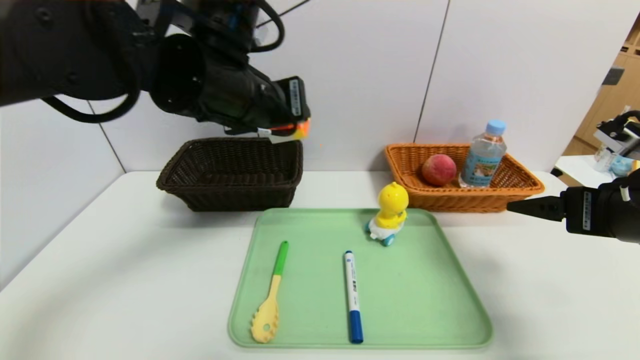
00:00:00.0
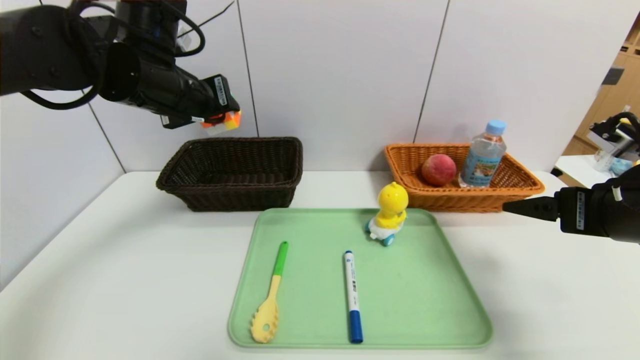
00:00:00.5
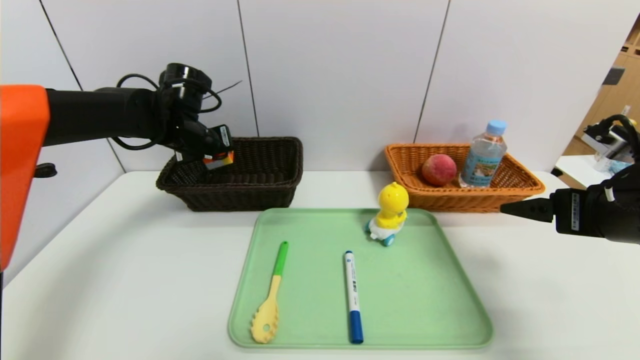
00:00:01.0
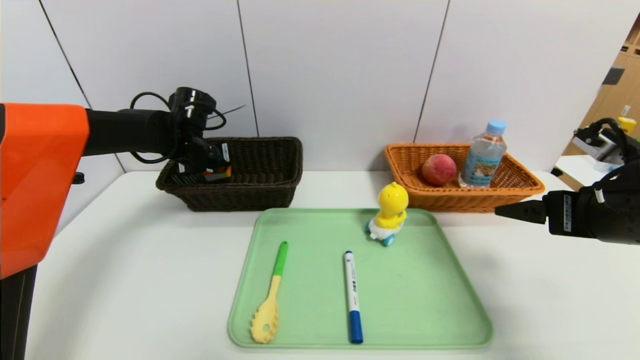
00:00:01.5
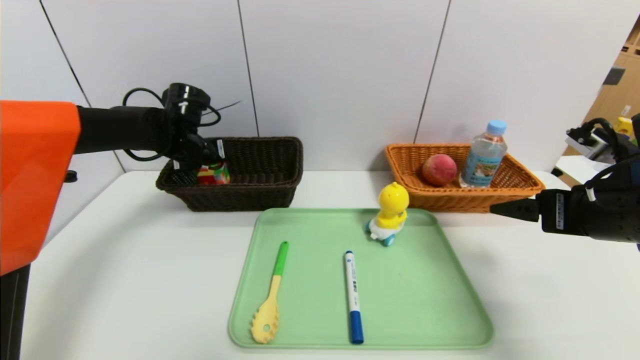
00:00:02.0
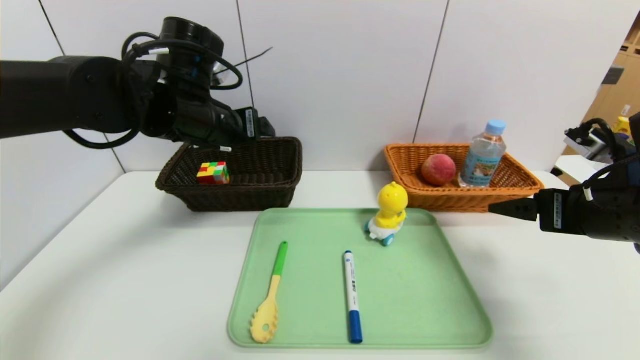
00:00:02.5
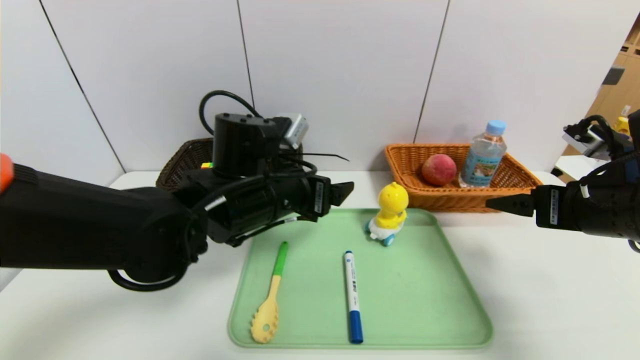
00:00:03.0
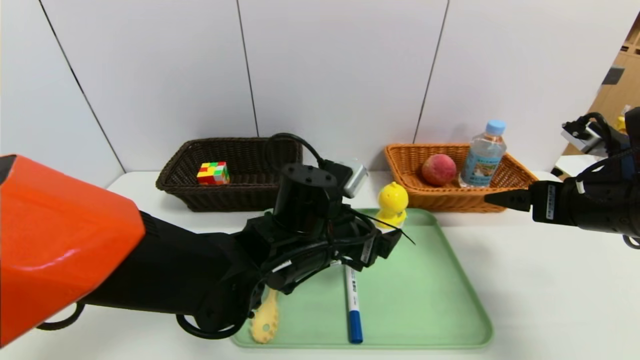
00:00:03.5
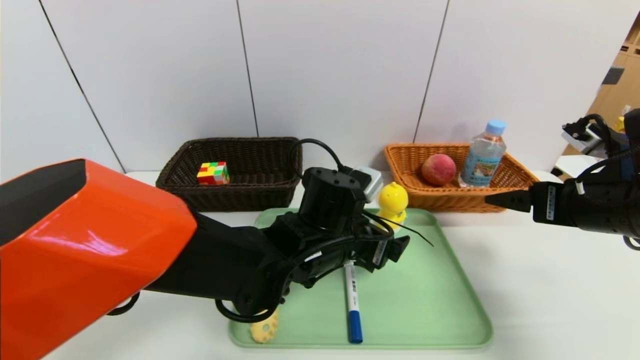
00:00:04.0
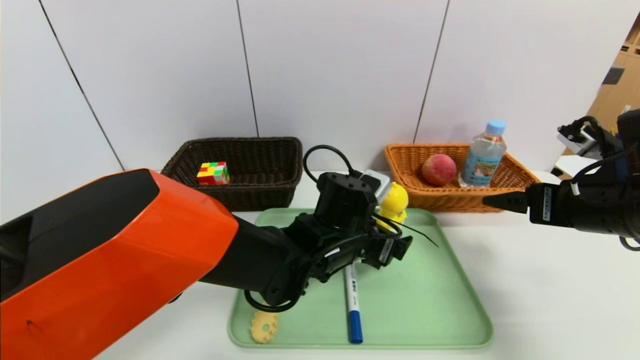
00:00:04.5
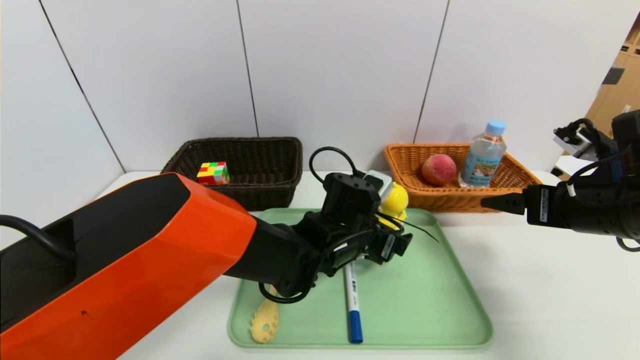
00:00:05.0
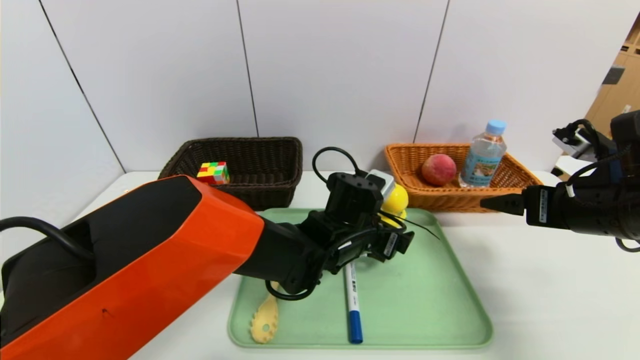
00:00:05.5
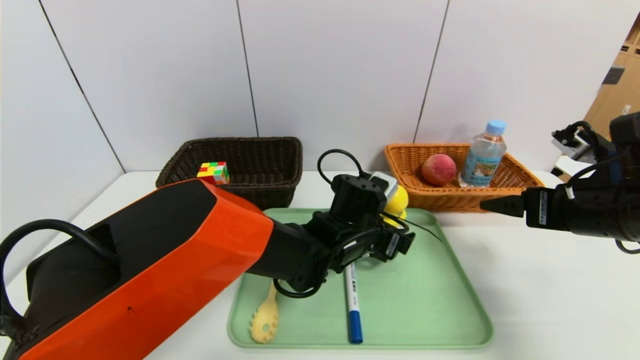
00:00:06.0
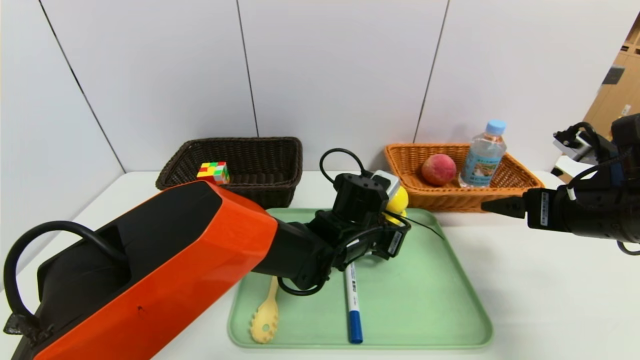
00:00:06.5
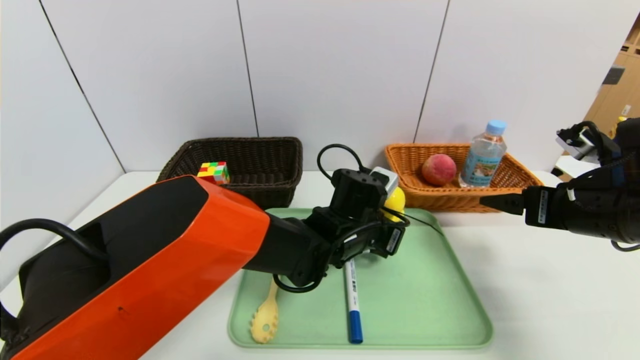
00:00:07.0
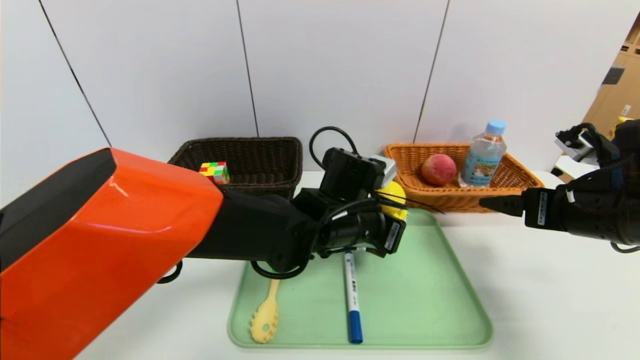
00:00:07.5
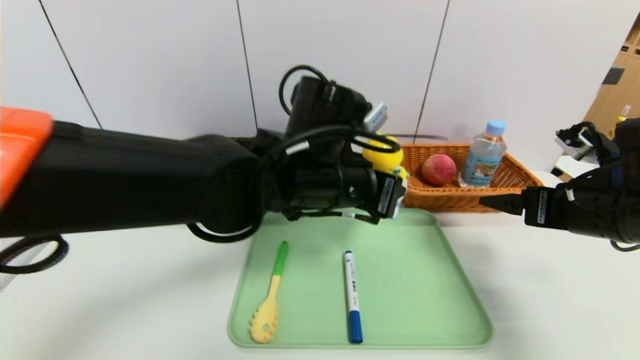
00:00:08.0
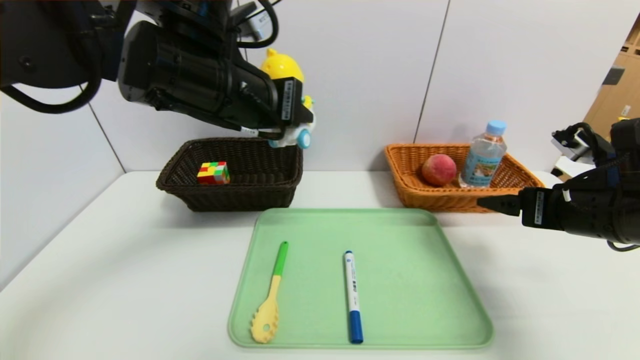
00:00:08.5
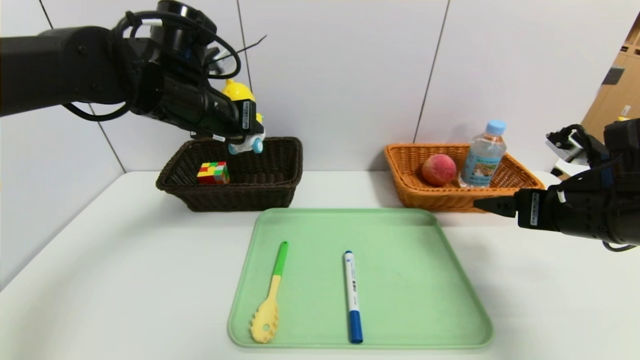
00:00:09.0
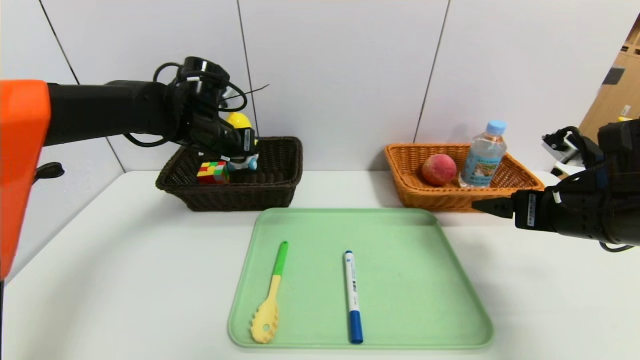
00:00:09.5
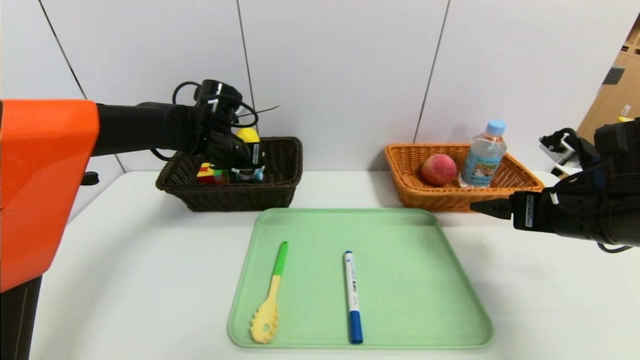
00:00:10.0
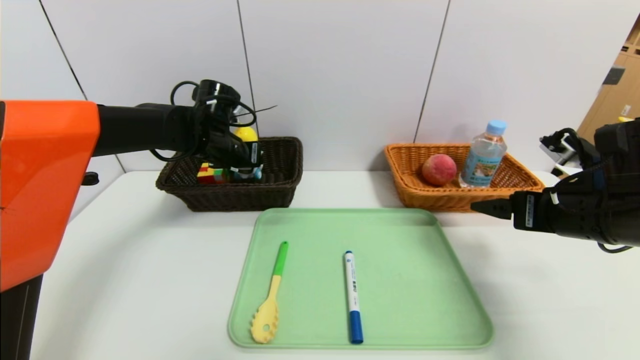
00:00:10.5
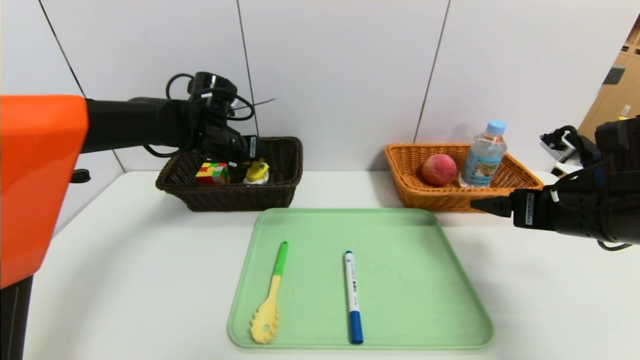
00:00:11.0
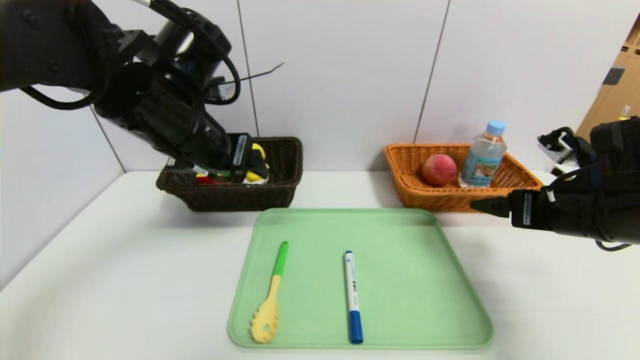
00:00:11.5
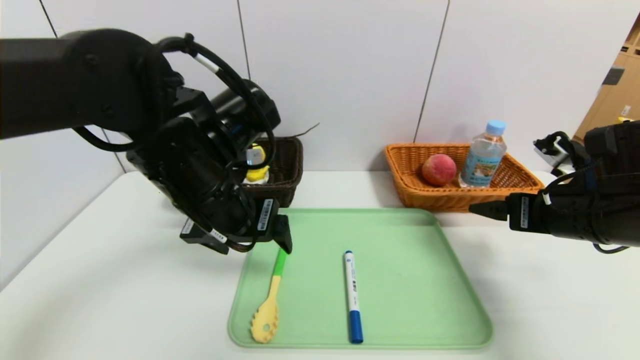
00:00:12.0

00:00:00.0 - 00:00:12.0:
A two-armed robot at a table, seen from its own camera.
Task of the whole recording: place the food in the right basket with the right gripper, and place the non food items in the left basket with the left gripper.
Step, 00:00:02.0 - 00:00:11.0: Grasp the yellow duck and put it in the left basket.
00:00:00.0 - 00:00:02.0: The left gripper is displaced forward, to the left and downward by about 25 cm.
00:00:02.0 - 00:00:04.0: The left gripper shifts approximately 30 cm to the right and backward.
00:00:04.0 - 00:00:06.0: The left gripper ends up roughly 5 cm from where it was.
00:00:06.0 - 00:00:08.0: The left gripper moves upward, roughly 15 cm, and closes its fingers.
00:00:08.0 - 00:00:10.0: The left gripper is displaced to the left and forward by some 25 cm.
00:00:10.0 - 00:00:12.0: The left gripper goes approximately 20 cm backward, and opens up.

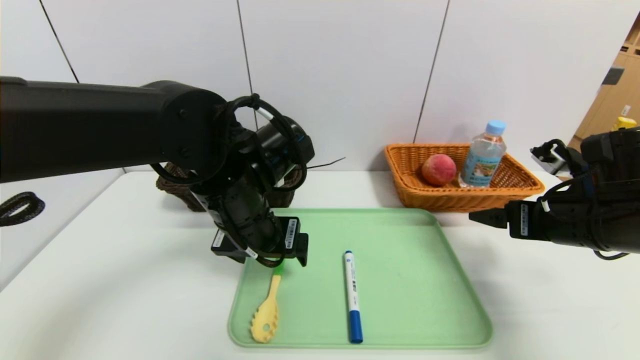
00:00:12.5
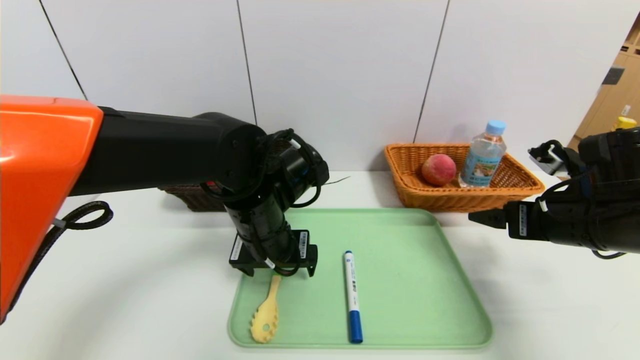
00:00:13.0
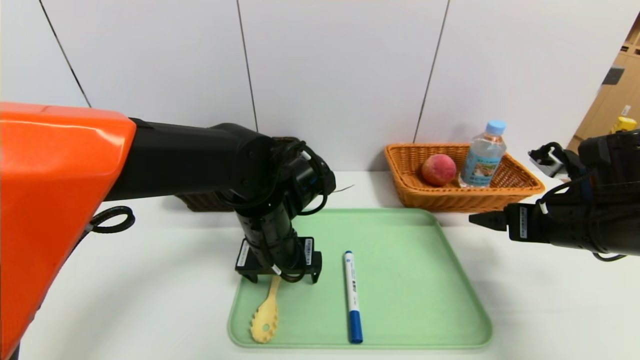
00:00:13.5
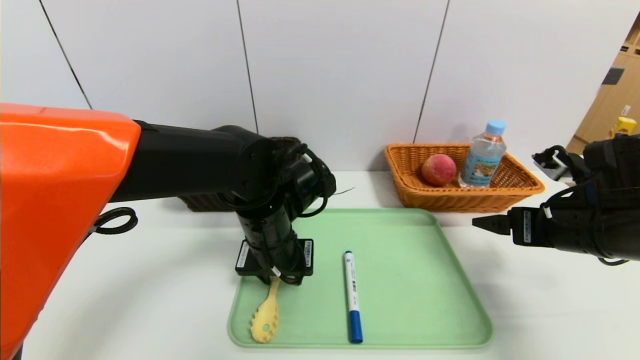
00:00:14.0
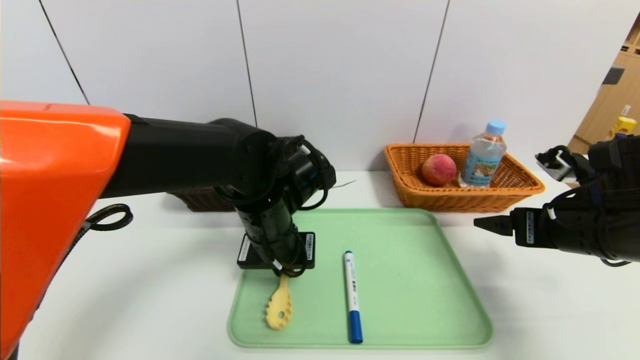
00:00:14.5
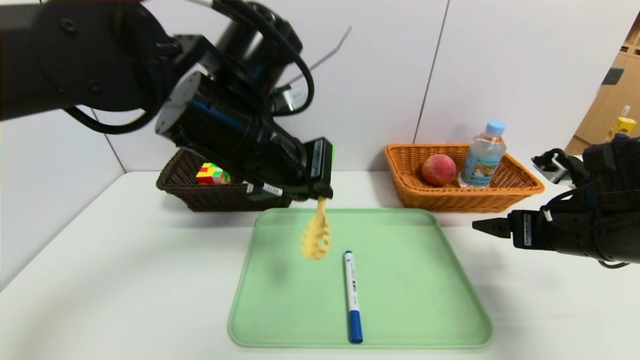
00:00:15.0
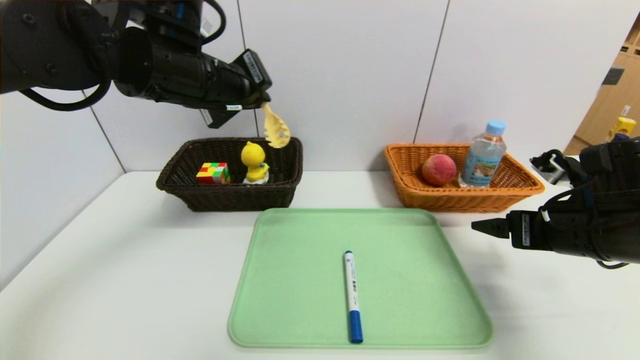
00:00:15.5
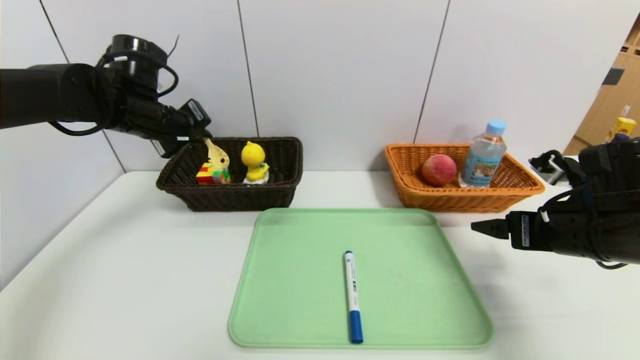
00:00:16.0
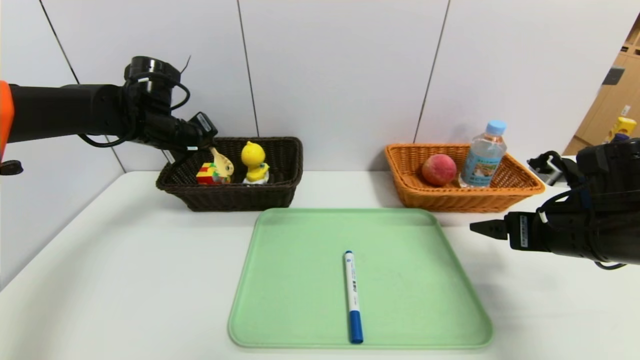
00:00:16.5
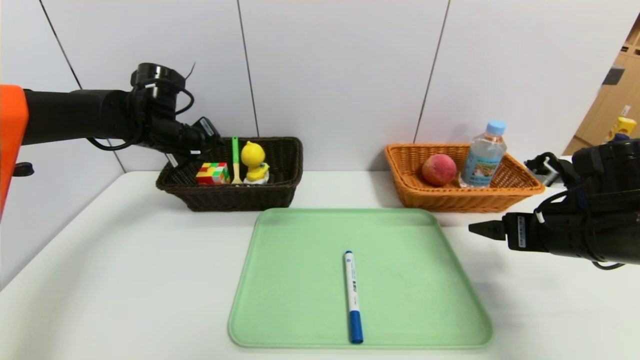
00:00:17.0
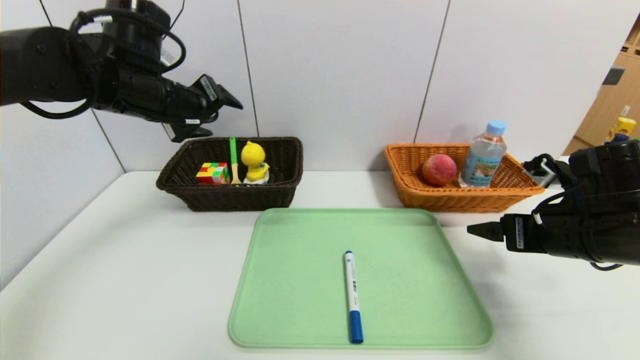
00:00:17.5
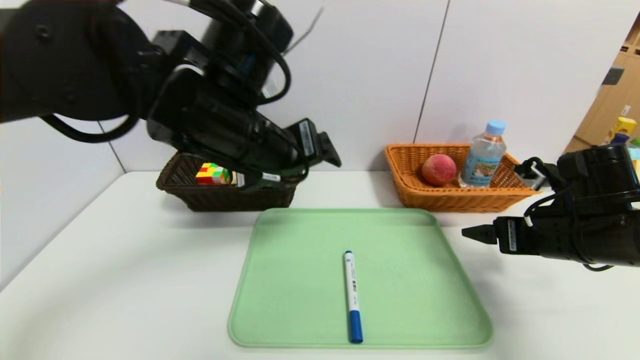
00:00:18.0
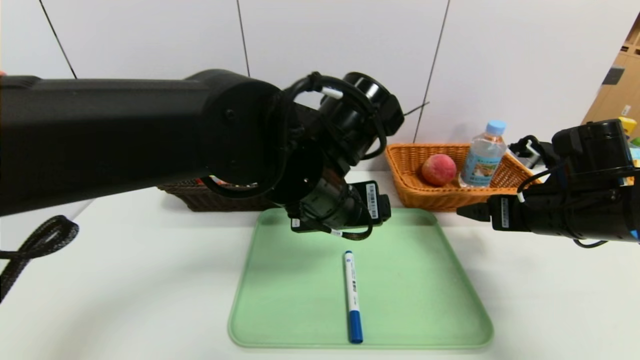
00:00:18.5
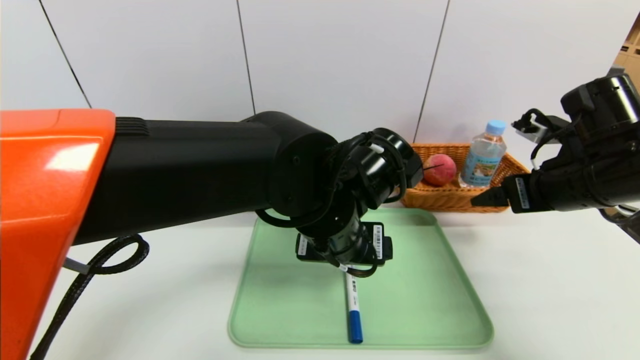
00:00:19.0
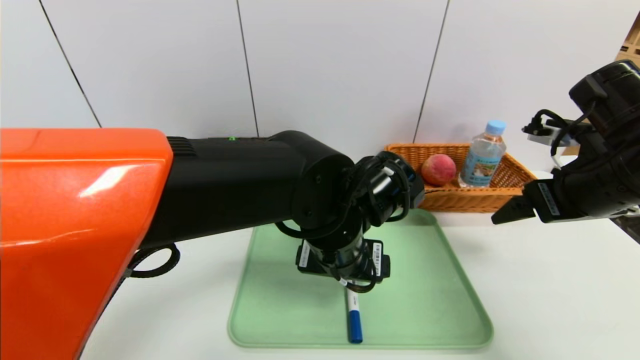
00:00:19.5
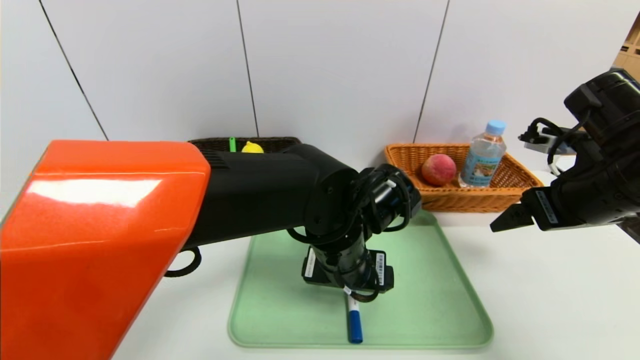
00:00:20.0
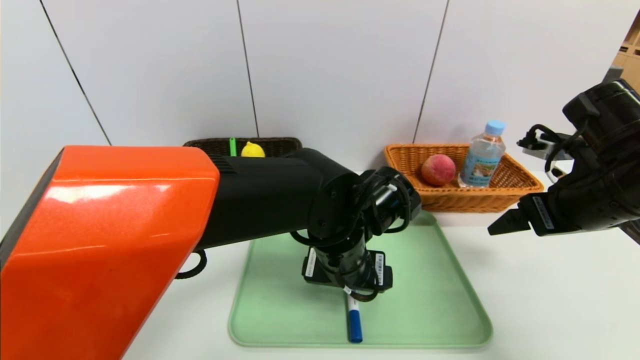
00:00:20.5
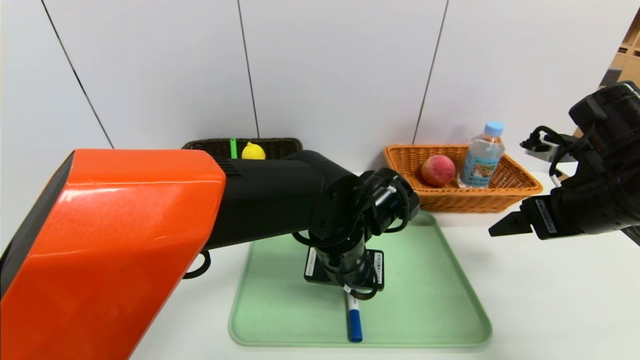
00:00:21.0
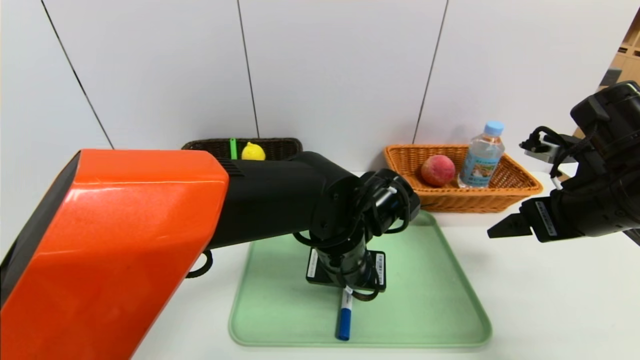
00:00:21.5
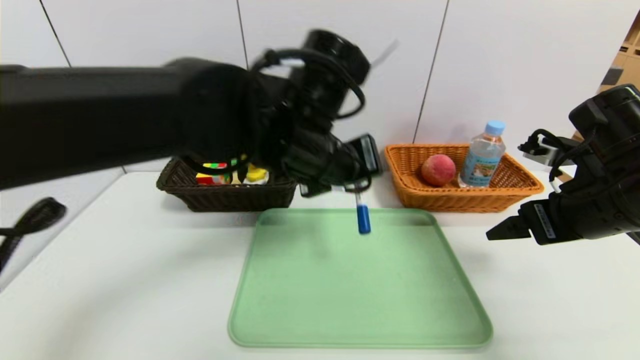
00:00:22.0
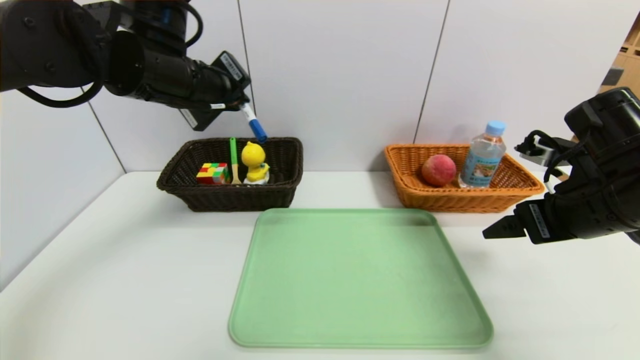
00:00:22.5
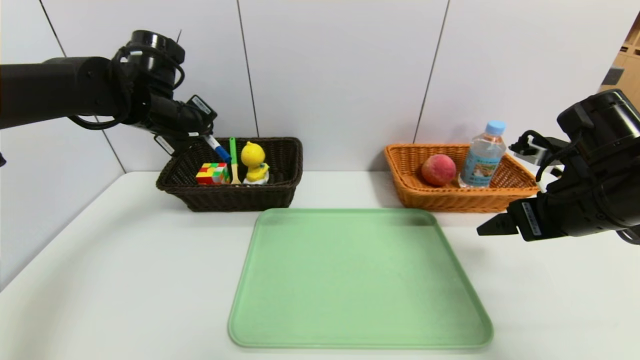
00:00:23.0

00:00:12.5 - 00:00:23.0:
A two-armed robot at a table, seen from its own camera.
Task of the whole recording: place the food in the right basket with the right gripper, and place the non food items in the left basket with the left gripper.
Step, 00:00:12.5 - 00:00:17.0: Grasp the brush and put it in the left basket.
00:00:12.5 - 00:00:14.5: The left gripper closes its fingers.
00:00:14.5 - 00:00:16.5: The left gripper travels to the left and forward by approximately 25 cm.
00:00:16.5 - 00:00:19.0: The right gripper moves upward, roughly 5 cm, while the left gripper goes roughly 35 cm to the right and backward, and opens up.
00:00:19.0 - 00:00:21.0: The left gripper goes roughly 5 cm downward, and closes its fingers.
00:00:21.0 - 00:00:23.0: The left gripper moves to the left, forward and upward, some 35 cm, and closes its fingers.
